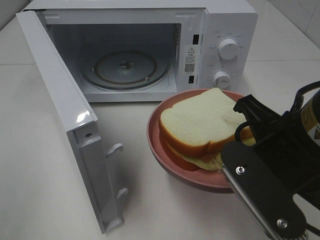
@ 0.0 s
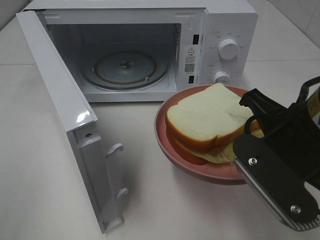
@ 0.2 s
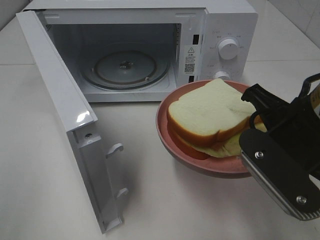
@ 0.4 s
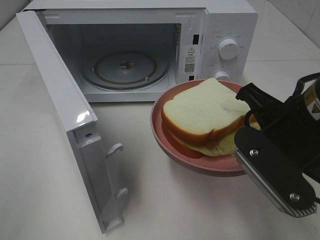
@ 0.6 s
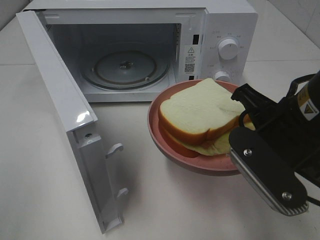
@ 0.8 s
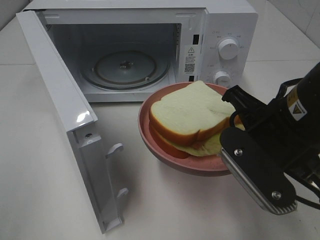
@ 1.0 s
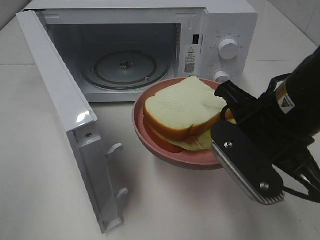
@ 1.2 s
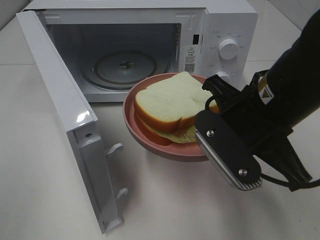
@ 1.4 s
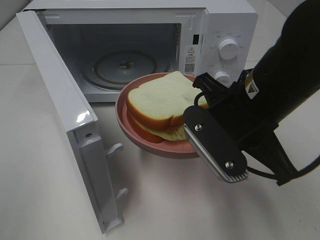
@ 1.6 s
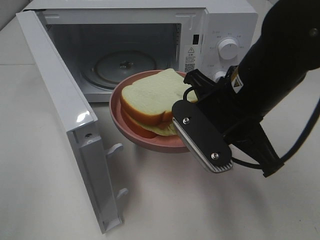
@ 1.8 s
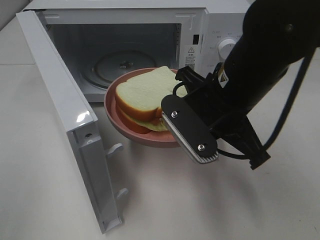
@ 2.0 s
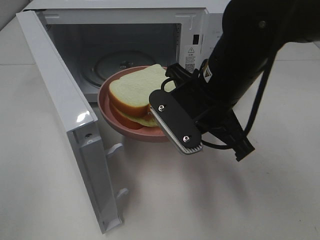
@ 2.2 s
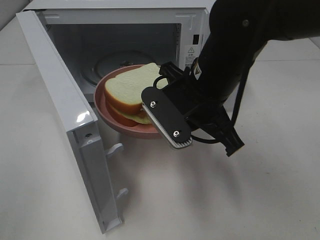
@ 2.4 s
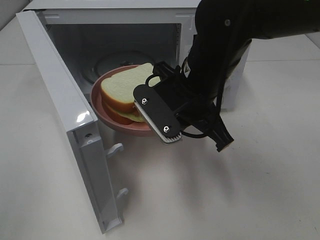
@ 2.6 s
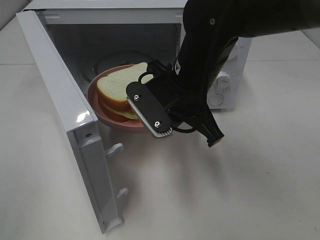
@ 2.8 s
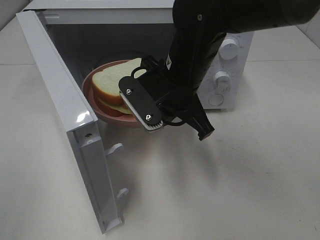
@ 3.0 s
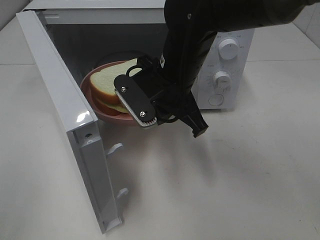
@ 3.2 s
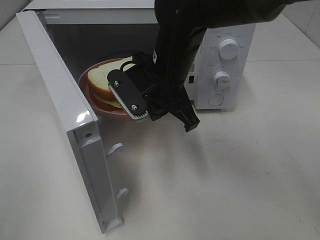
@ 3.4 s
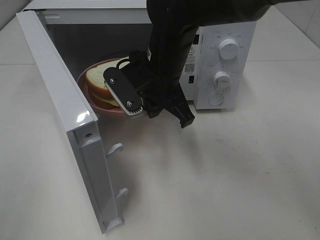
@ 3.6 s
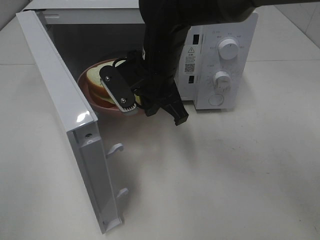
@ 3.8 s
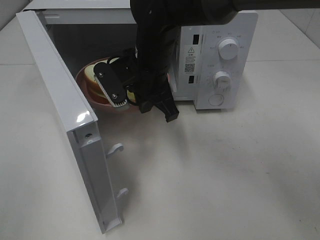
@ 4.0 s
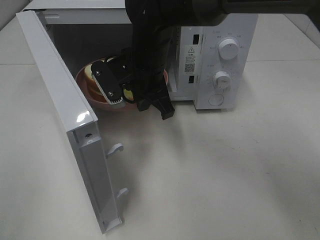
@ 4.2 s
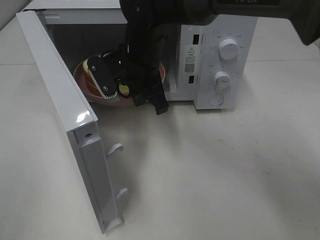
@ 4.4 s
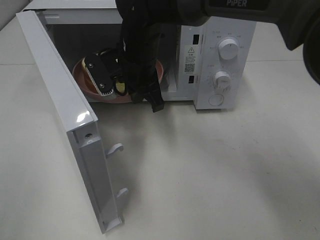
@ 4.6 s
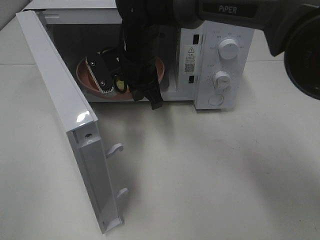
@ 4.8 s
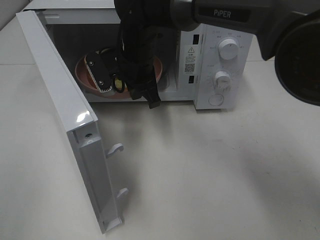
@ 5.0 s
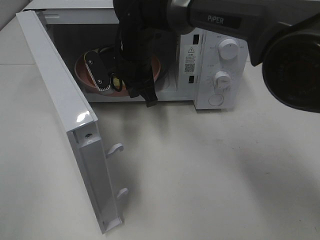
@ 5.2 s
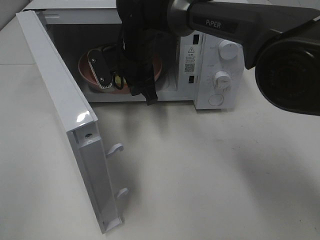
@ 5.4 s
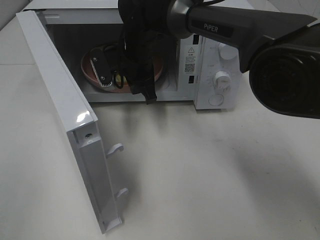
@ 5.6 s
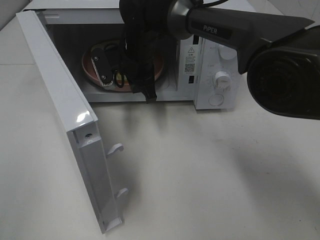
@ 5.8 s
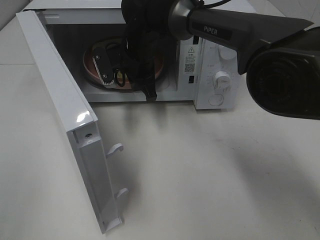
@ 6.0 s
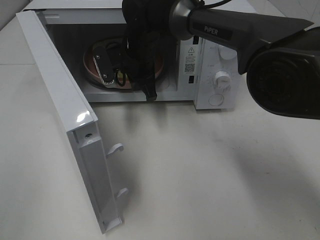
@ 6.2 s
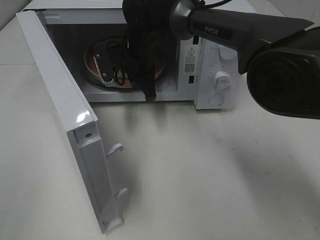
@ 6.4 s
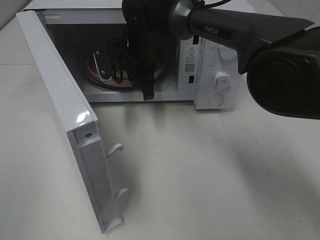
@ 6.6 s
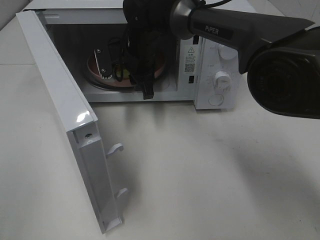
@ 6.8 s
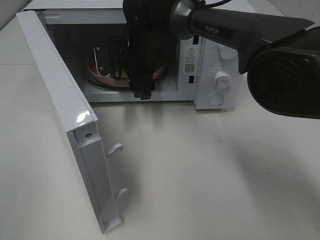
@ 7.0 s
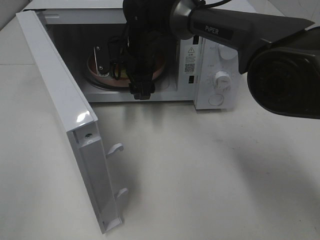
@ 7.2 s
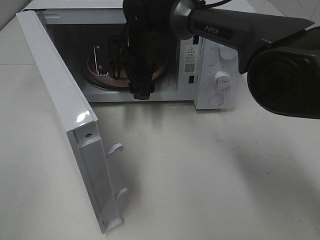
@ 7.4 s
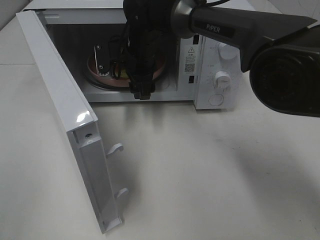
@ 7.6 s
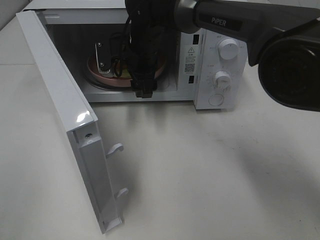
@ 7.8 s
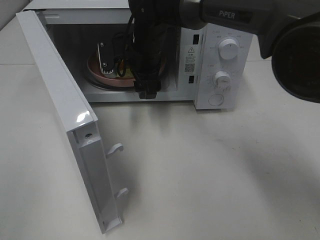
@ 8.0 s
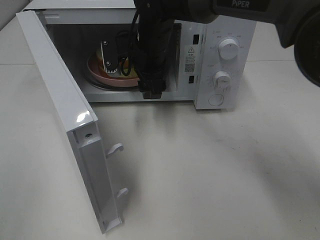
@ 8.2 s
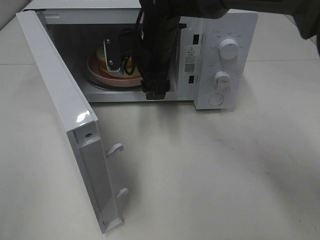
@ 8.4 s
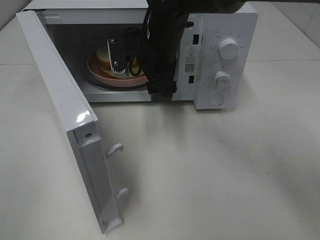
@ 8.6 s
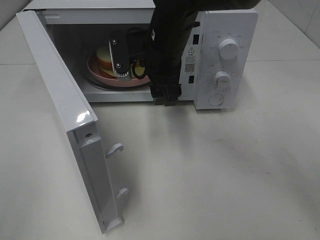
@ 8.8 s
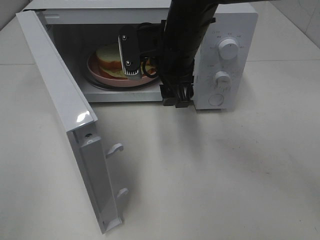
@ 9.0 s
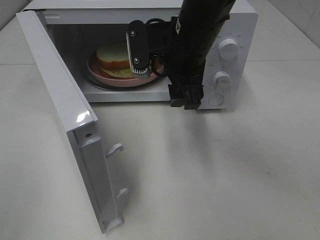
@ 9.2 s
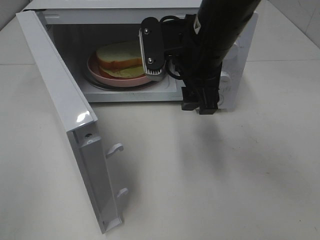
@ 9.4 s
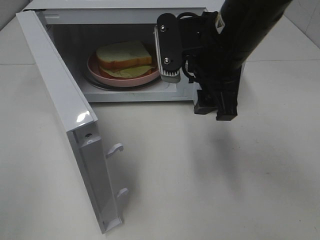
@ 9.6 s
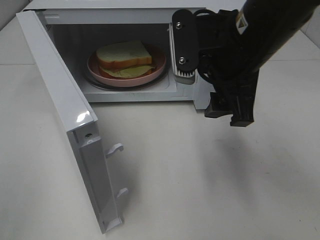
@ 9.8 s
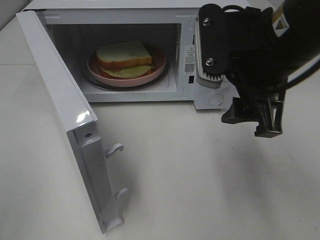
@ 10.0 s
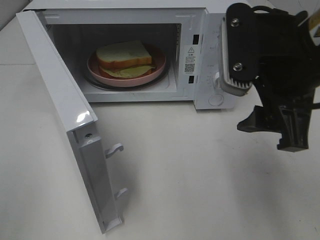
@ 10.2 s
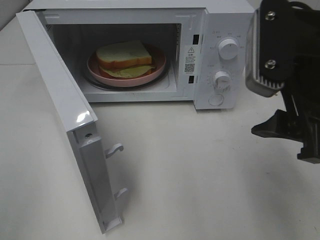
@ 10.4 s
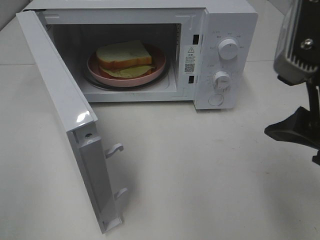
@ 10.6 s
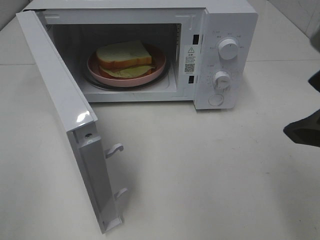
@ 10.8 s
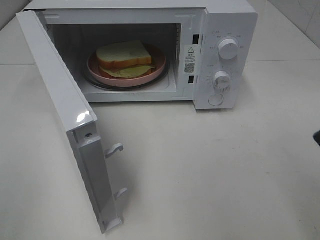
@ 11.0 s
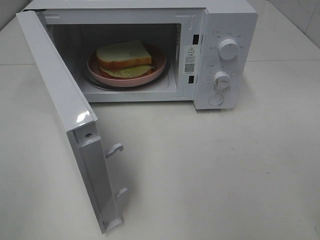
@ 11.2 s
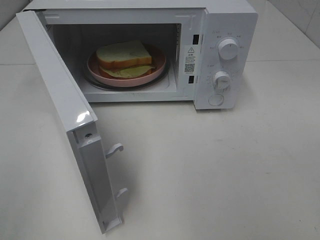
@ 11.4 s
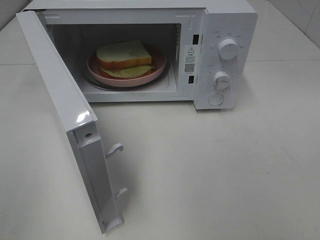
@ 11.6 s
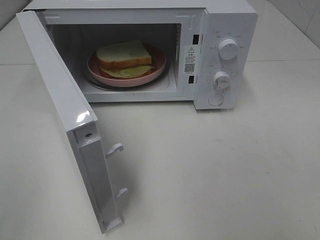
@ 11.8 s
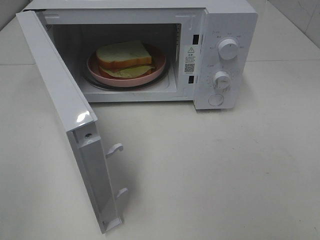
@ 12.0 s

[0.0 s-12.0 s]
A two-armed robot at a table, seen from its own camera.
Task of the whole recording: Heat Sandwich.
Step, 0.0 to 8.4 s: Right hand: place the plate in the microwave.
0.0 to 1.6 s: The right gripper shifts some 5 cm forward.
1.6 to 3.0 s: The right gripper is displaced forward and to the left by approximately 10 cm.
3.0 to 4.4 s: The right gripper is displaced forward and to the left by some 10 cm.
4.4 to 6.0 s: The right gripper is displaced forward by about 5 cm.
6.0 to 7.6 s: The right gripper opens its fingers.
7.6 to 9.0 s: The right gripper heads backward, upward and to the right, covering approximately 15 cm.
9.0 to 10.4 s: The right gripper travels backward, to the right and upward by approximately 20 cm.
10.4 to 12.0 s: The right gripper goes approximately 20 cm backward and to the right.

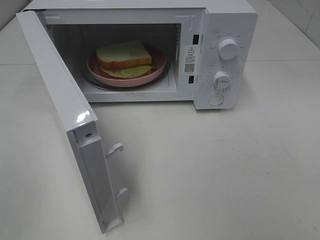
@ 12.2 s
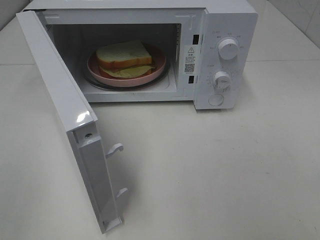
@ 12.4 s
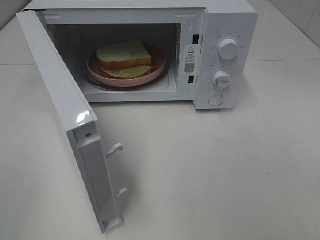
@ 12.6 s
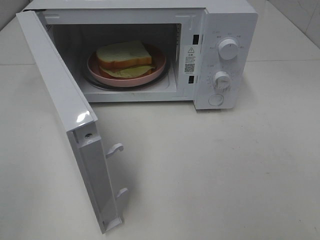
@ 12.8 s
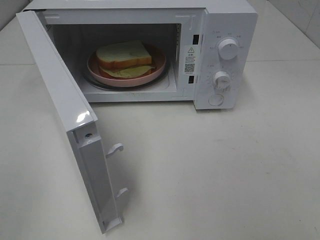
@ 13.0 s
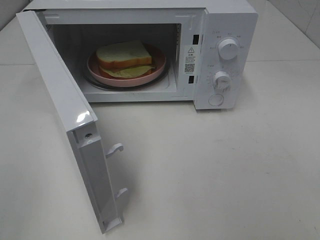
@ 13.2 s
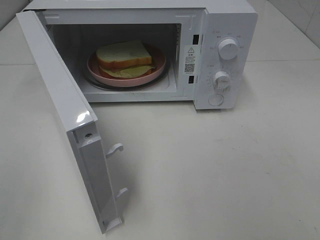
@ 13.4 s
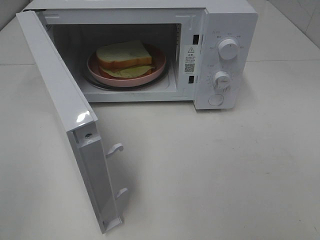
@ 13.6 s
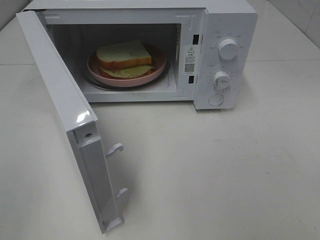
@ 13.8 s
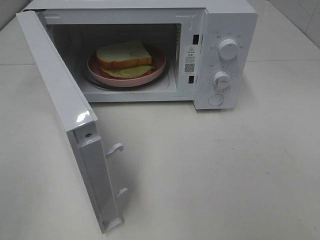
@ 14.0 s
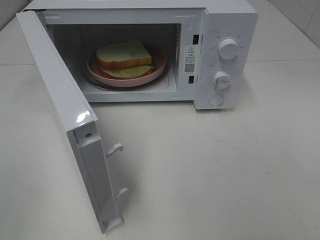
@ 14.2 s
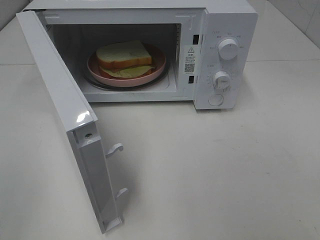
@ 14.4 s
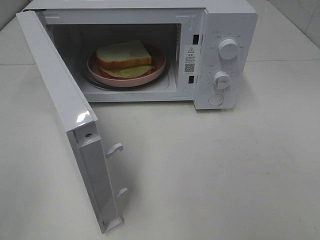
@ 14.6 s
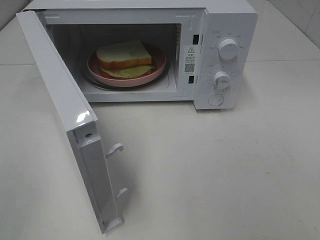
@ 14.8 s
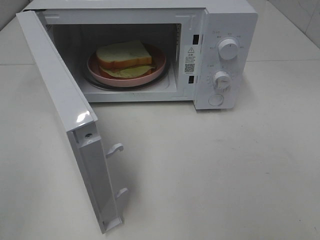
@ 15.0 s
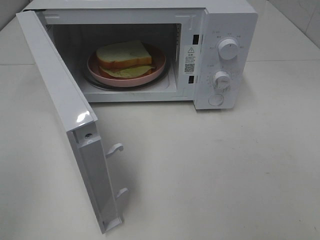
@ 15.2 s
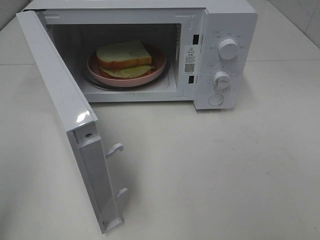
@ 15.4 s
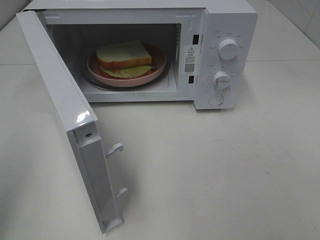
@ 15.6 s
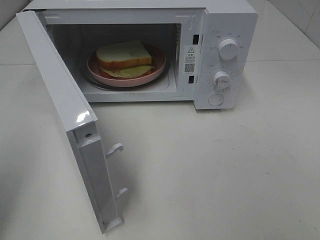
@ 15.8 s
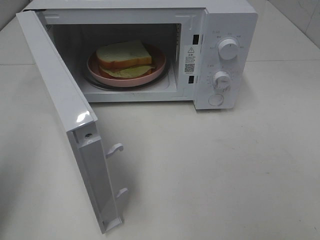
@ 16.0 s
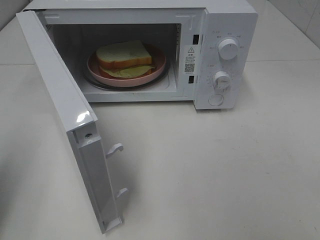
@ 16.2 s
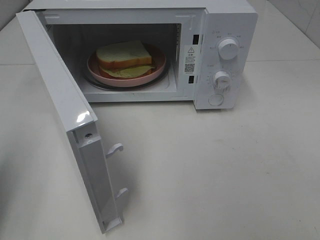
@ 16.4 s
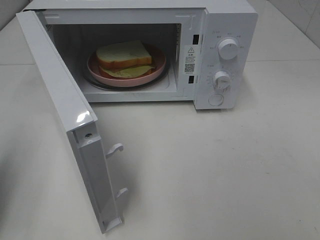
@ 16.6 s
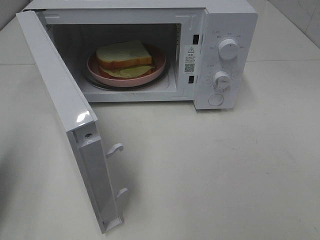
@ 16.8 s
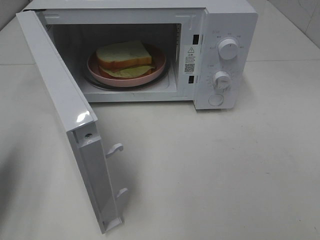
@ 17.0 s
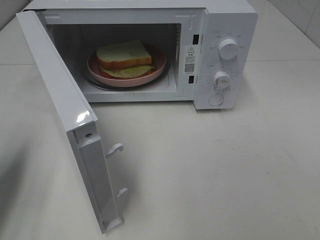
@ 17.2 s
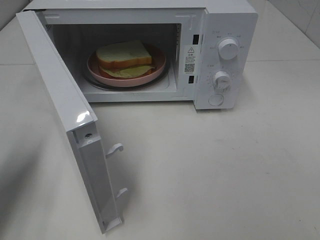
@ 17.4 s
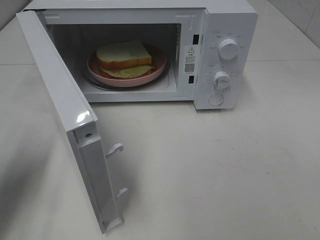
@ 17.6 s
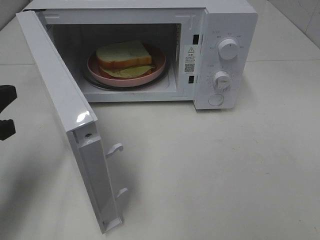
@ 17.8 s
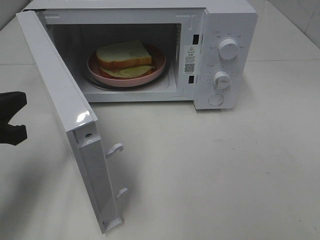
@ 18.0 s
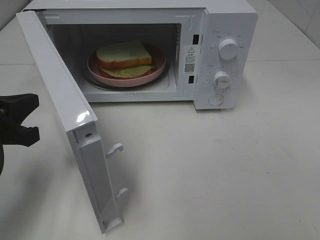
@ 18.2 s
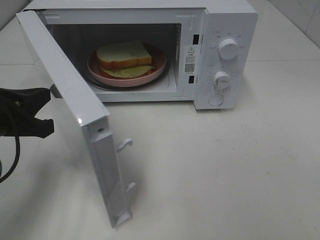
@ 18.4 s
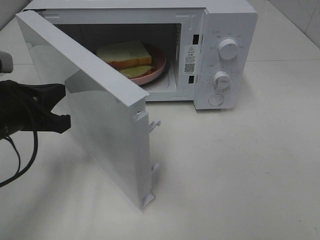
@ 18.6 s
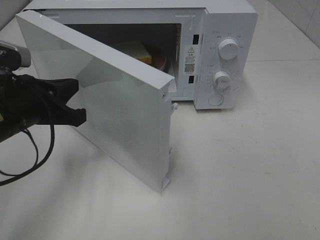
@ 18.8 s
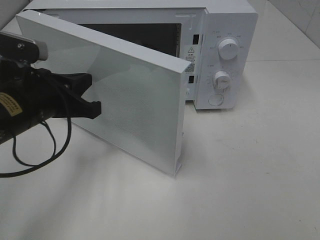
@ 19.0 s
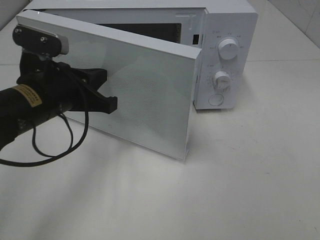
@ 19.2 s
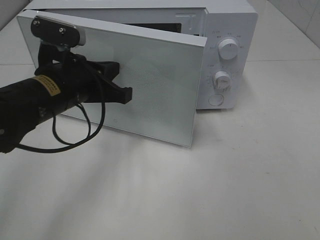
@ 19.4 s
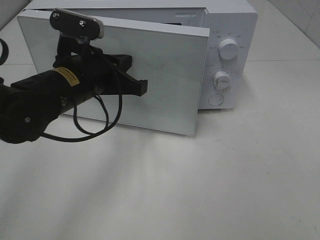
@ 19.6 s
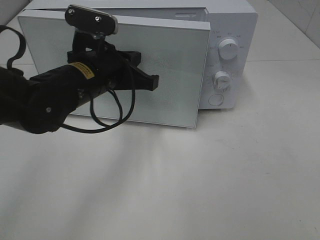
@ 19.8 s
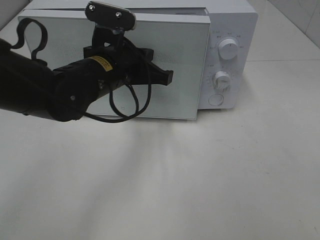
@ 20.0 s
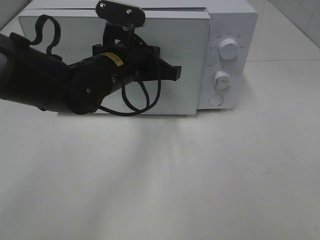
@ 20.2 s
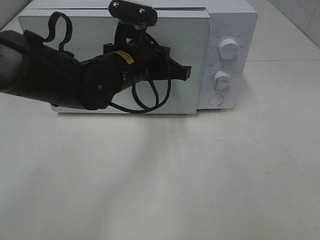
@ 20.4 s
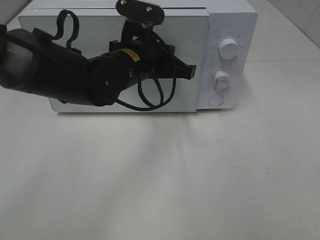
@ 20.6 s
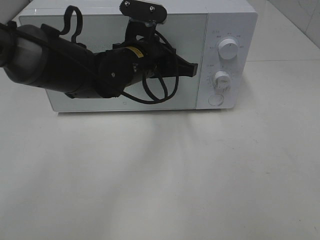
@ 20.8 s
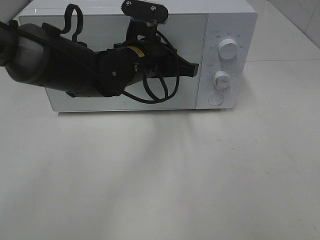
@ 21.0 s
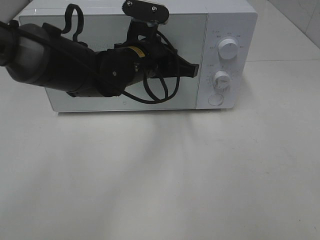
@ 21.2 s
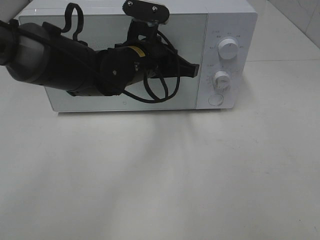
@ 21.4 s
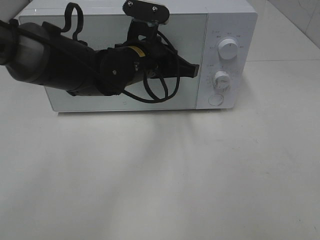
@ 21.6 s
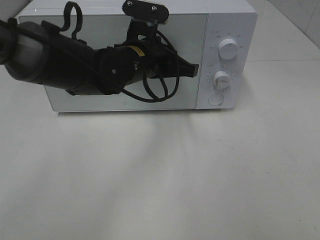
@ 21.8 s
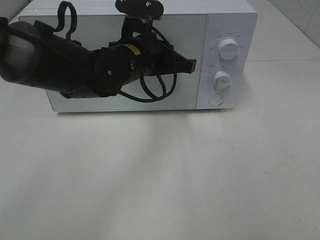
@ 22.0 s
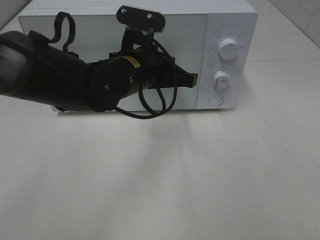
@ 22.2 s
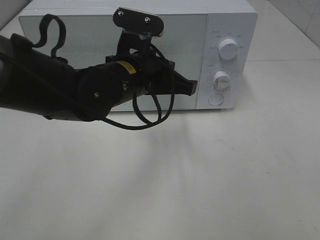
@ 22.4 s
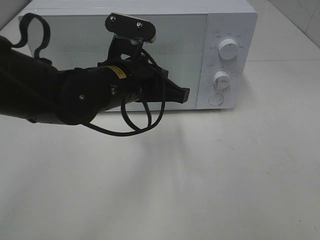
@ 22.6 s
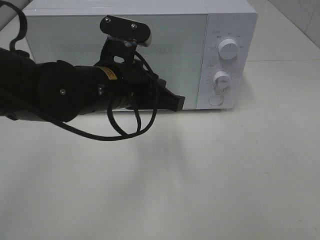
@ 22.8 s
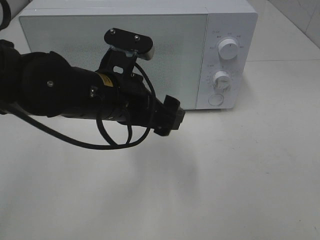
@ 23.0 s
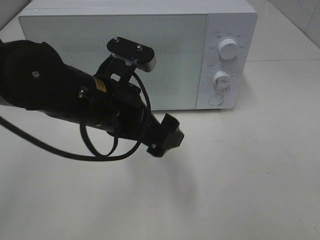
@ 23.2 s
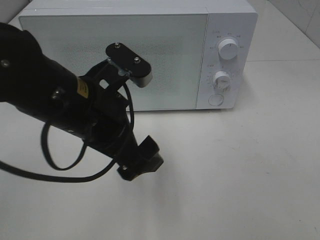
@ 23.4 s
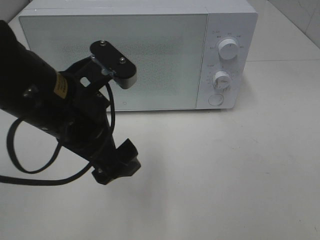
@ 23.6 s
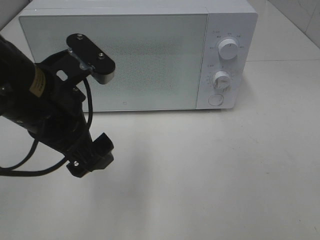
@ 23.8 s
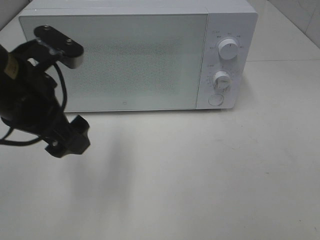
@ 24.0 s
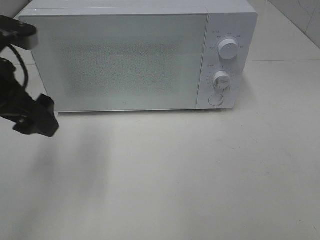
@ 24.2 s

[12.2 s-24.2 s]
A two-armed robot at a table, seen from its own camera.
Task of the whole recording: Heat Sandwich.
Step, 12.2 to 22.6 s: Left hand: close the microwave door.
15.2 to 16.6 s: The left gripper moves forward and downward, roughly 15 cm, and closes up.
16.6 to 18.2 s: The left gripper shifts about 10 cm to the right, forward and downward.
18.2 to 19.8 s: The left gripper goes roughly 20 cm to the right and forward.
19.8 to 21.2 s: The left gripper heads to the right, covering roughly 5 cm.
21.2 to 22.6 s: The left gripper moves backward, approximately 5 cm.
22.6 to 24.2 s: The left gripper is displaced to the left by about 15 cm, and opens.
